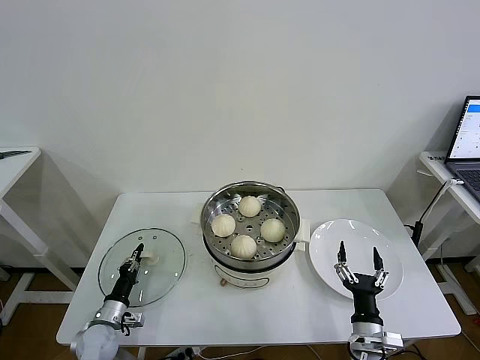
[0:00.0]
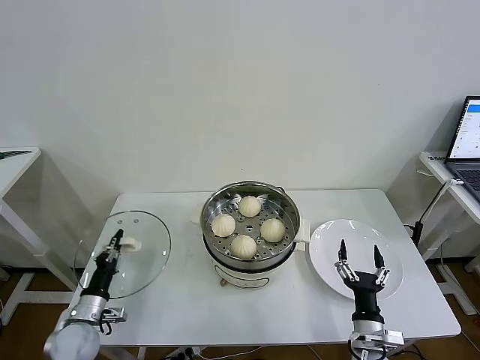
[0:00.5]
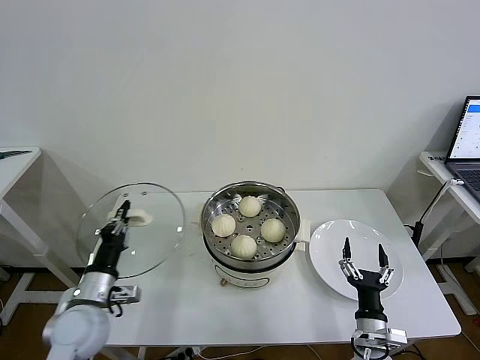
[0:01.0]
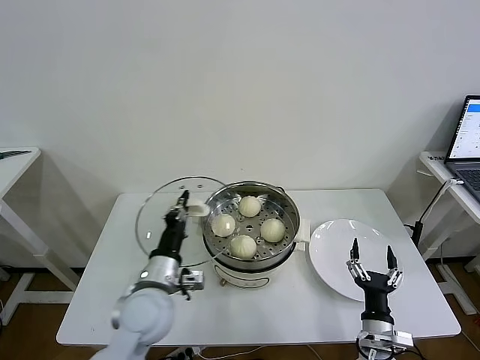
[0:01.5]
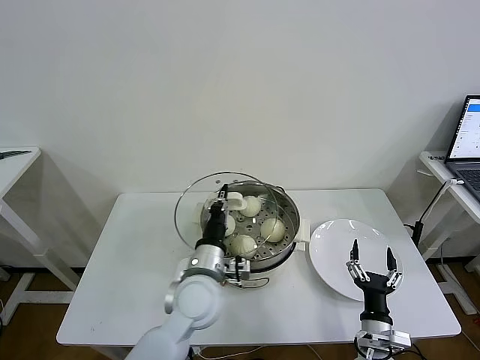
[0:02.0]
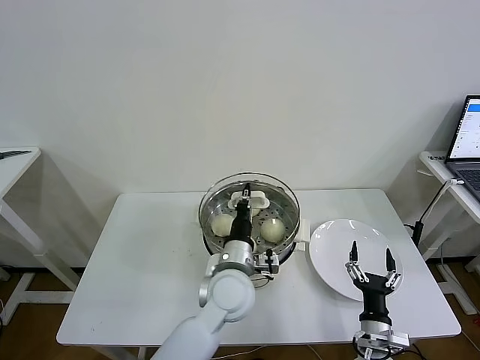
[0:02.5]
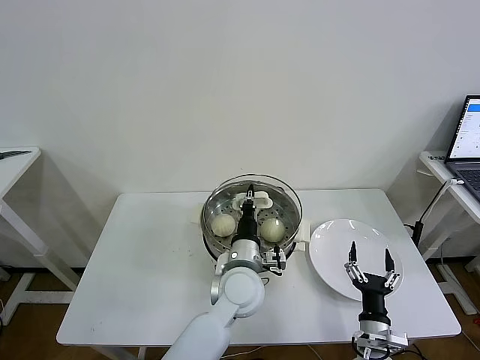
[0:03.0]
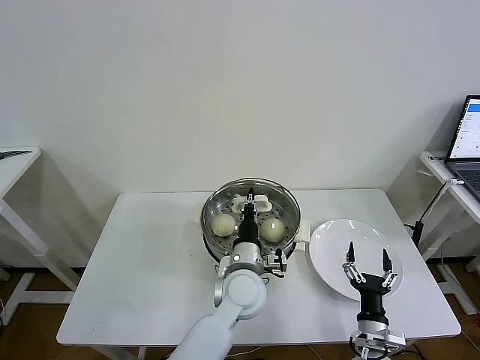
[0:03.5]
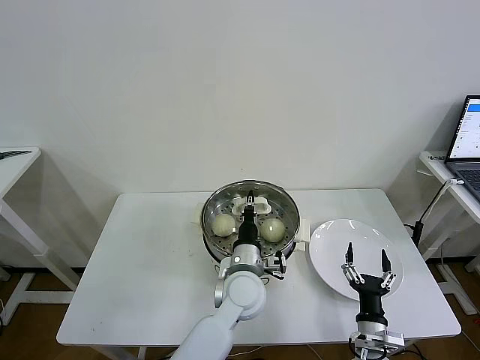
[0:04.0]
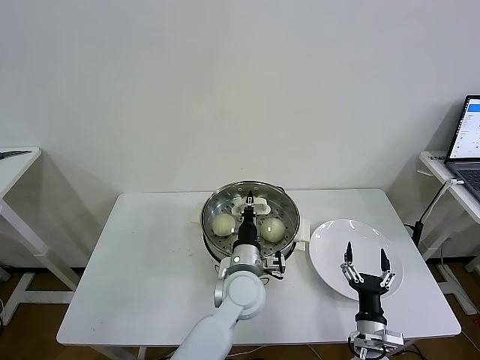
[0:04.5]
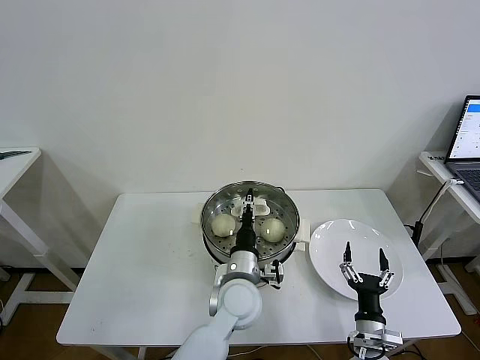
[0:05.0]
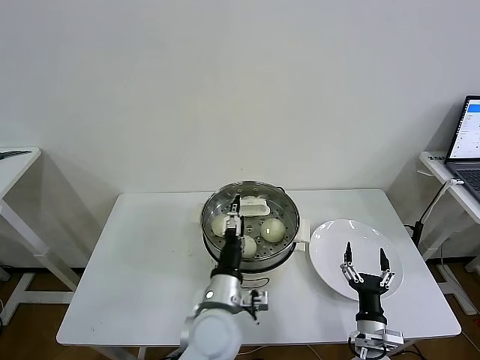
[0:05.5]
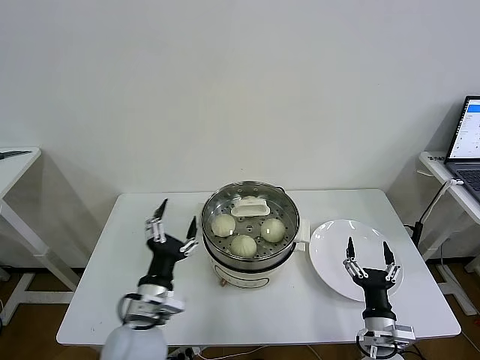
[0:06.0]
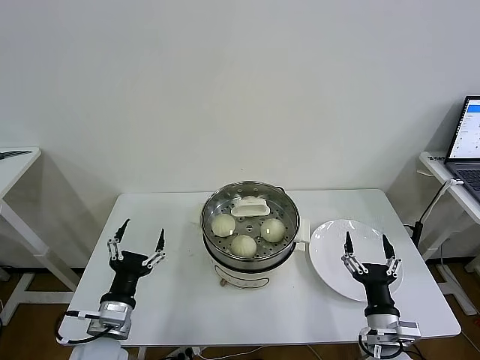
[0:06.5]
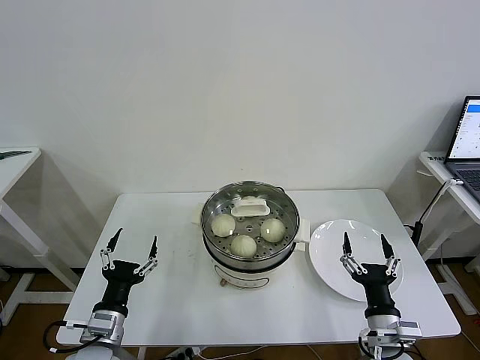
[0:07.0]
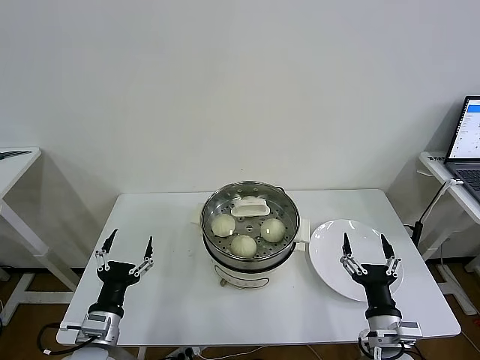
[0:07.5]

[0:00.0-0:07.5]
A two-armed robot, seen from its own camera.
Task of the whole recording: take steamed baozi put them in steamer then cover it.
Step, 0:00.5 to 0:05.5: Place the pot lid on the steamer with left gripper.
0:00.0 to 0:02.0: The left gripper shifts some 35 cm to the right and upward.
0:02.0 to 0:04.0: The left gripper shifts some 10 cm to the right.
0:04.0 to 0:05.5: The left gripper shifts roughly 5 cm backward, and opens up.
0:05.5 to 0:07.5: The right gripper shifts about 10 cm upward; the left gripper goes roughly 25 cm to the left.

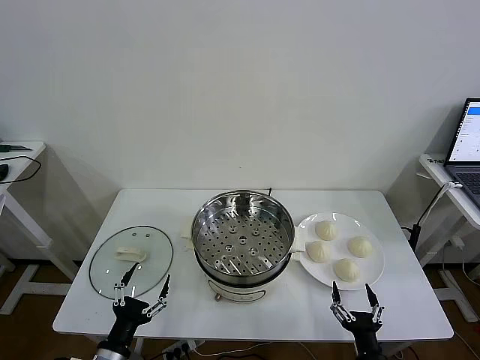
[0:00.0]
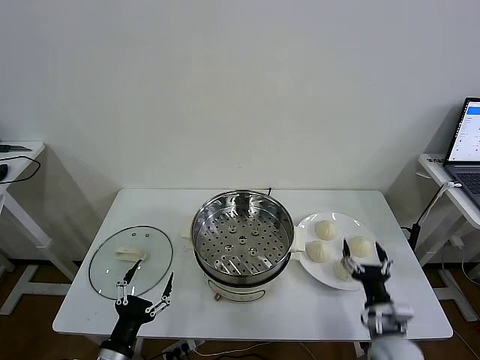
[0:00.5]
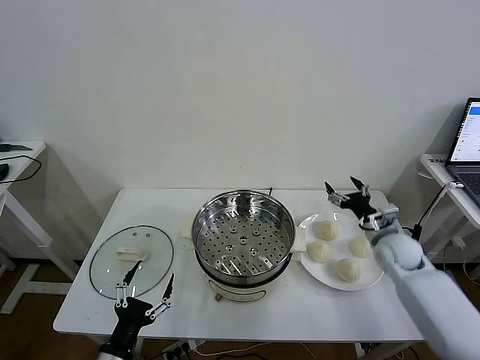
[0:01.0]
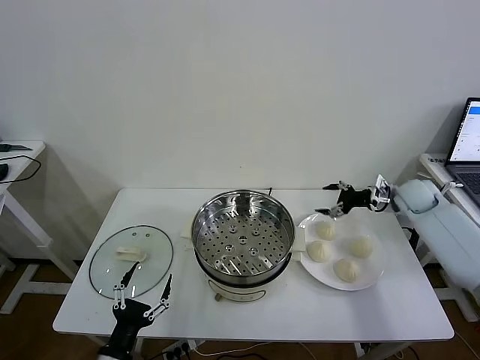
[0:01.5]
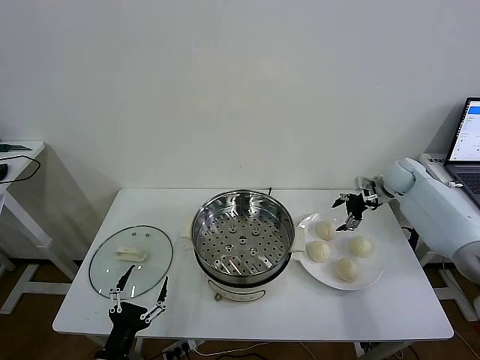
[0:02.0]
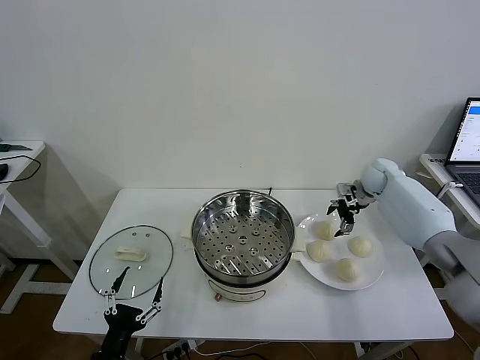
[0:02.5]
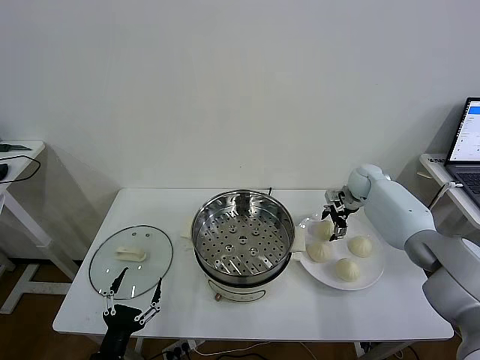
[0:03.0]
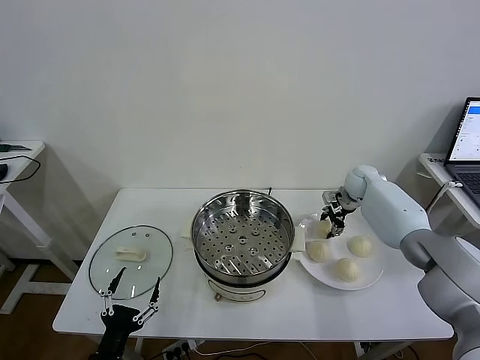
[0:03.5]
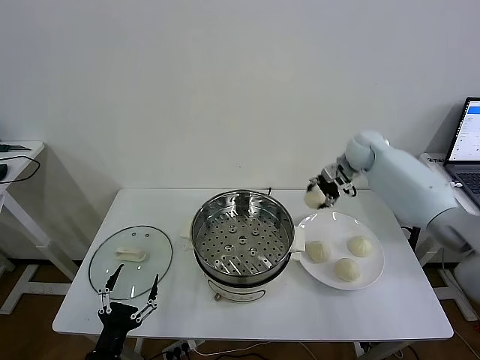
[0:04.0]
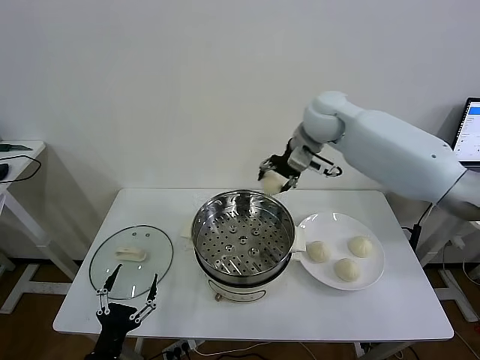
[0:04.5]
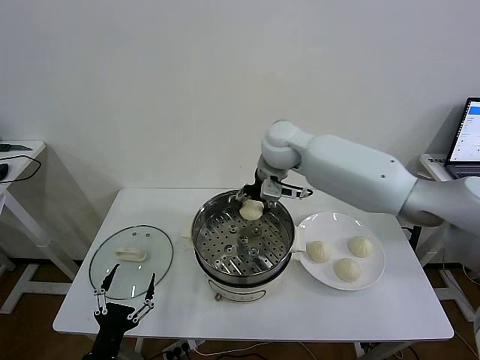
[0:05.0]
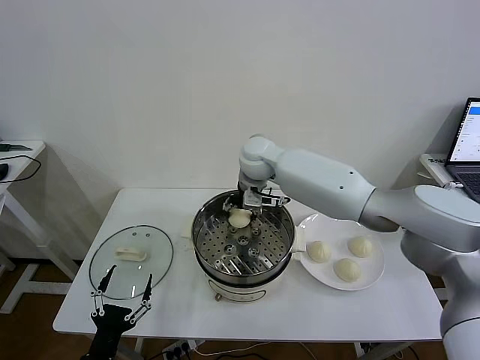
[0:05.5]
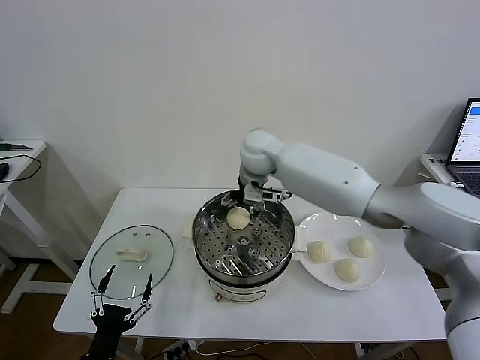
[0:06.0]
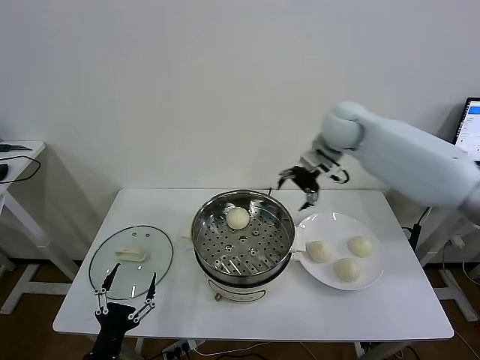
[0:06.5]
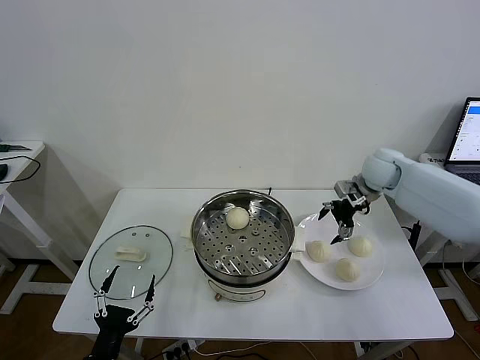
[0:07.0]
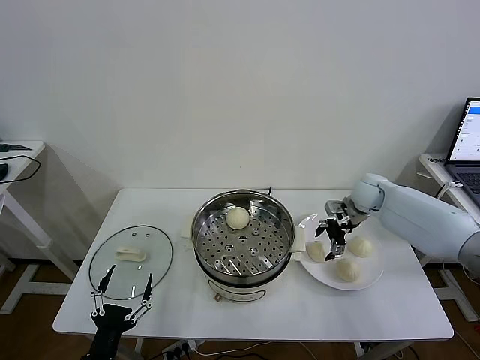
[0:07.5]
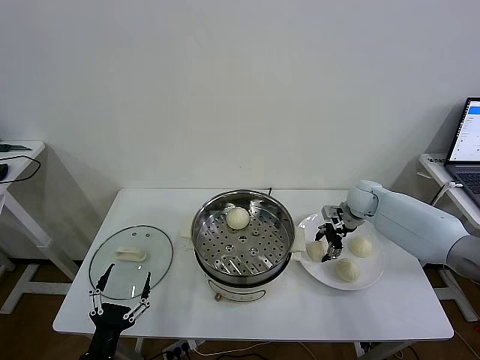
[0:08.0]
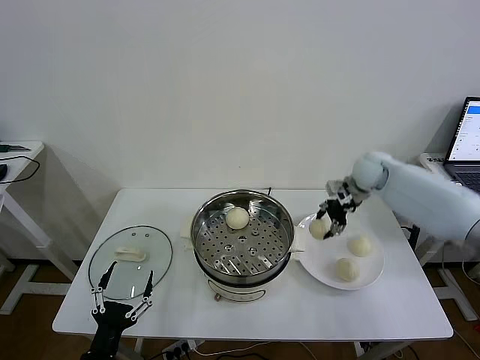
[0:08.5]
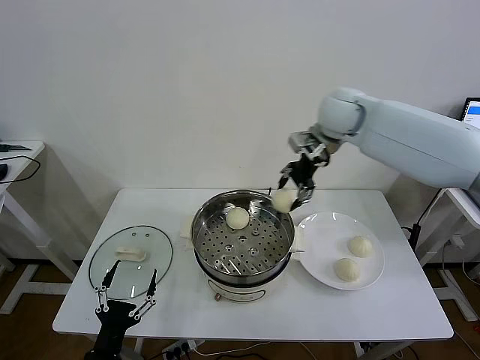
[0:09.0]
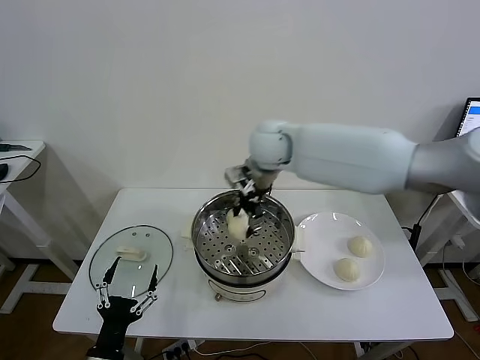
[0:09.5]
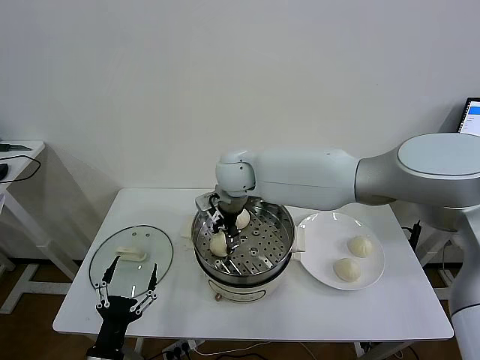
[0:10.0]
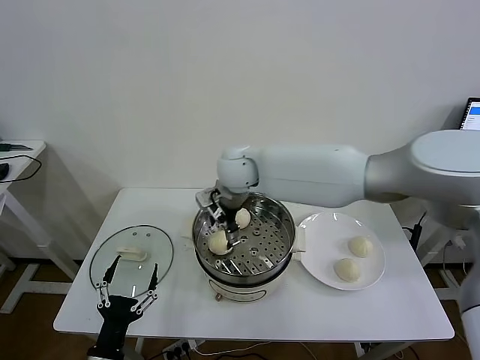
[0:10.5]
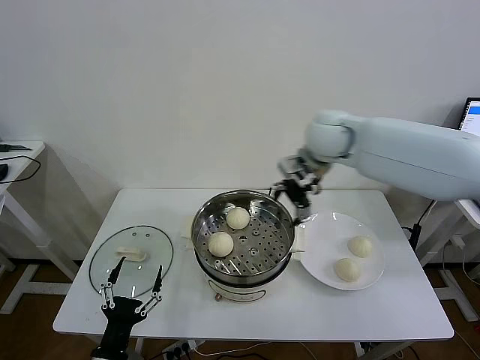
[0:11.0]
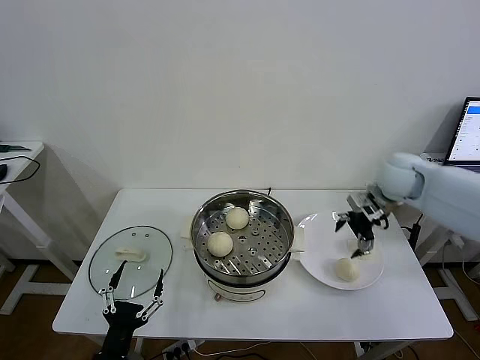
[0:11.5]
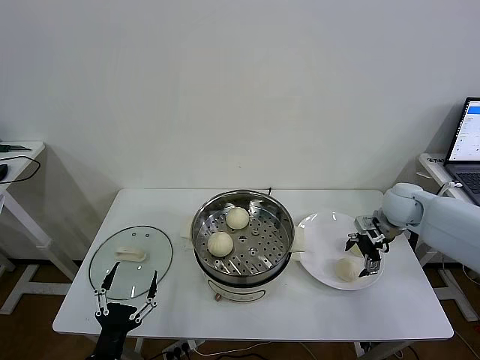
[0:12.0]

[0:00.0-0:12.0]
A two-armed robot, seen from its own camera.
Task of the whole recording: take steamed baozi put them in steamer then cover it.
Step, 0:00.0 to 0:03.0: Grasp the baozi in the plate with right gripper.
Step, 0:03.5 to 0:05.5: Place the baozi on the steamer with right gripper.
Step, 0:06.0 to 0:08.0: Grasp the baozi in the plate with right gripper.
Step, 0:08.5 to 0:10.5: Place the baozi on the steamer with right gripper.
0:02.0 to 0:04.0: The right gripper moves to the left and upward, approximately 20 cm, and closes its fingers.
0:04.0 to 0:06.0: The right gripper is displaced to the left by roughly 20 cm, and opens its fingers.
0:06.0 to 0:08.0: The right gripper goes some 30 cm to the right and downward, and closes.
0:08.0 to 0:10.0: The right gripper goes some 35 cm to the left.
0:10.0 to 0:12.0: The right gripper travels to the right by about 40 cm, and opens.

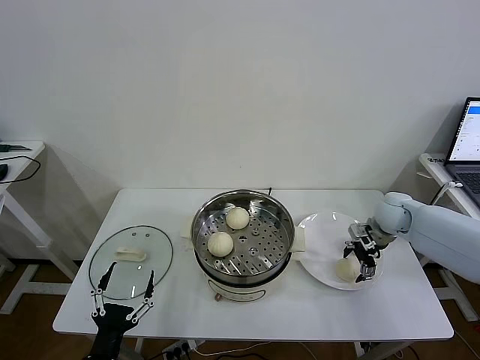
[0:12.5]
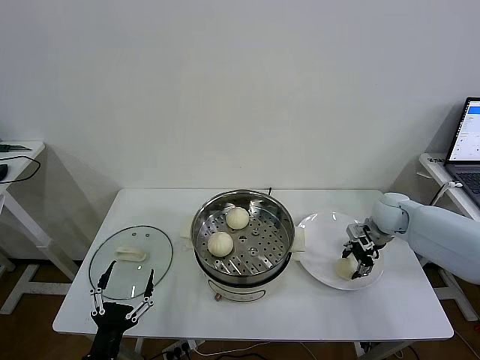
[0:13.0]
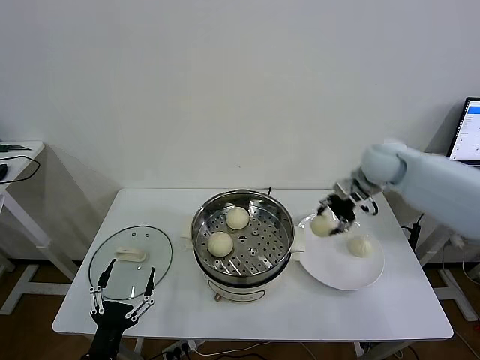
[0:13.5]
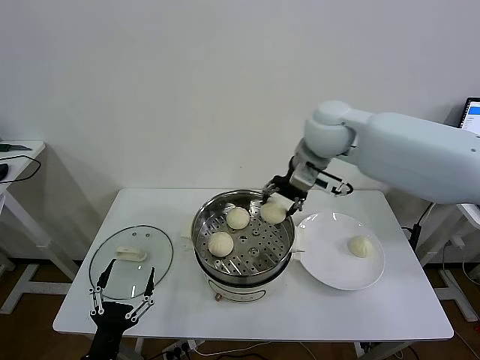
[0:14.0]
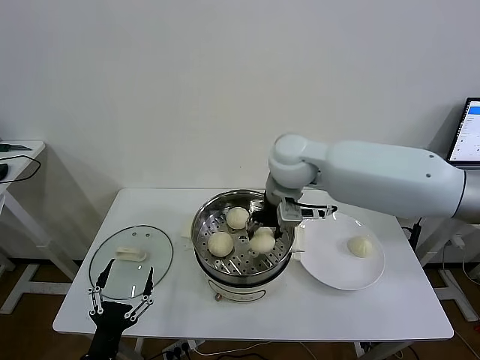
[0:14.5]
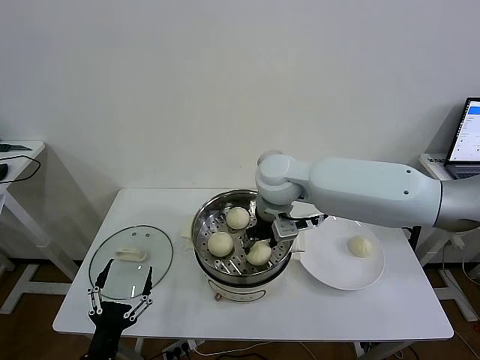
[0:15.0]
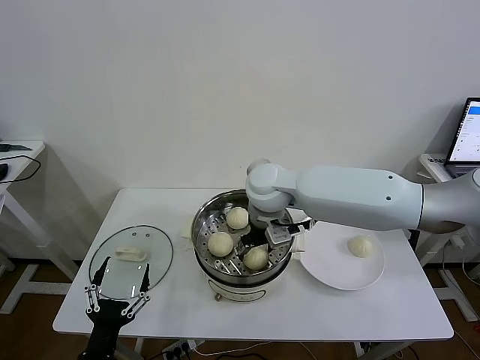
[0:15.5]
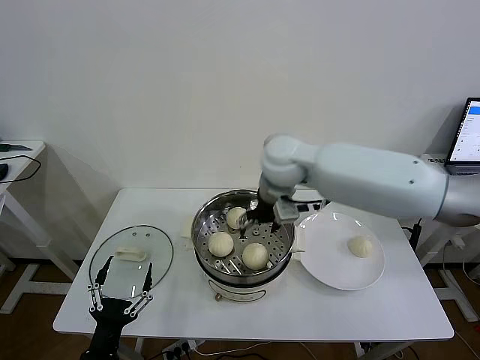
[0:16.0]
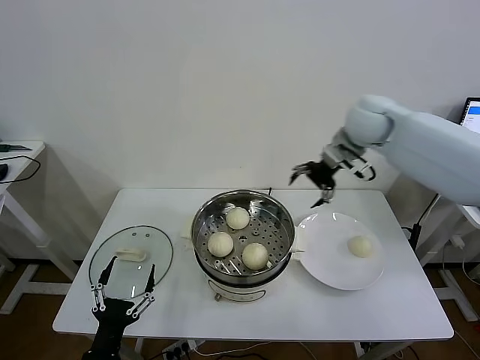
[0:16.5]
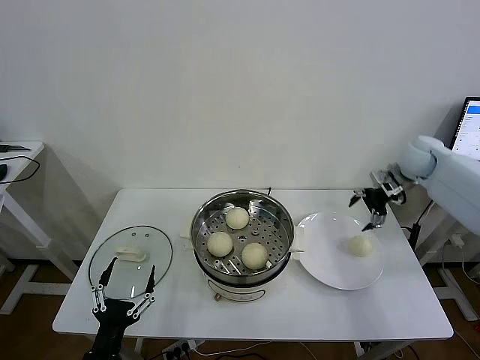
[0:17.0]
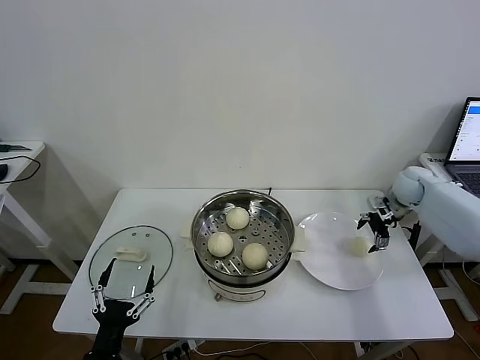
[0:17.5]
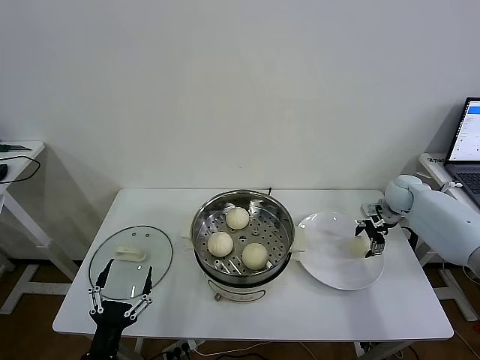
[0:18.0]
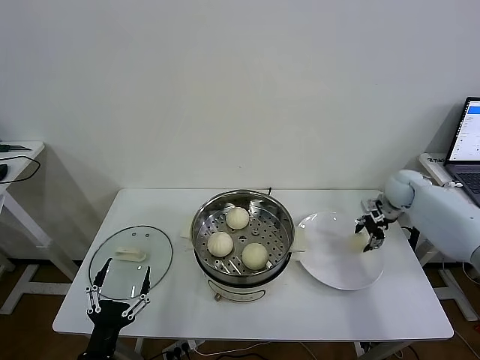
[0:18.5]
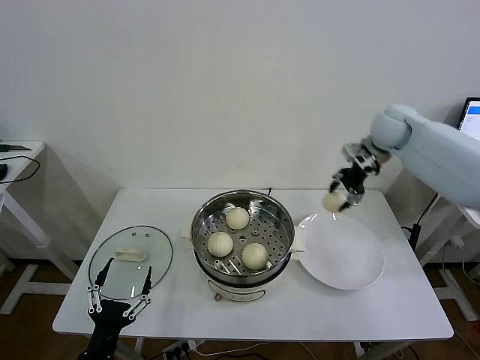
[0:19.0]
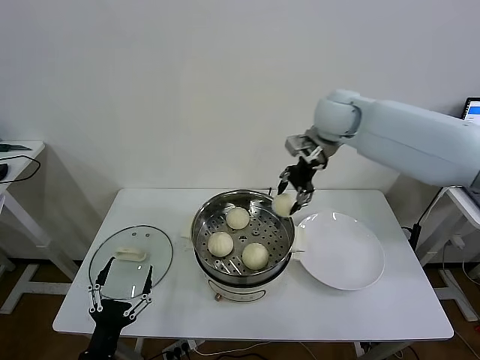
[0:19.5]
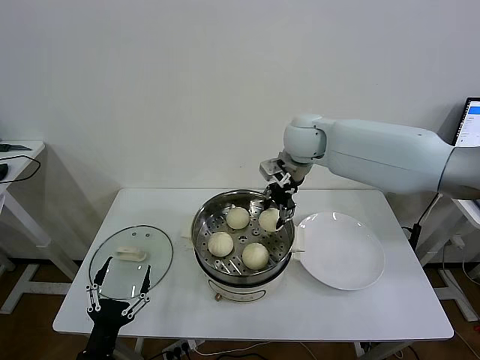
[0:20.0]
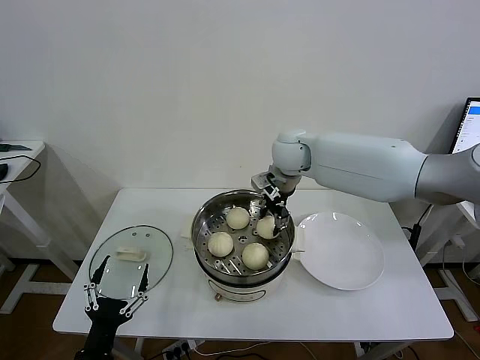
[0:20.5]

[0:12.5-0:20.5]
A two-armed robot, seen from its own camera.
Task of the whole recording: take steamed baozi put them in steamer then cover it.
Step, 0:13.0 to 0:15.5: Place the baozi on the steamer with right gripper.
Step, 0:16.0 to 0:18.0: Grasp the baozi in the plate with right gripper.
0:12.5 to 0:14.5: The right gripper heads to the left and upward, covering approximately 35 cm, and closes.
0:14.5 to 0:16.5: The right gripper goes approximately 20 cm to the right and forward, and opens up.
0:16.5 to 0:18.5: The right gripper heads downward and to the right, covering approximately 25 cm, and closes up.
0:18.5 to 0:20.5: The right gripper travels to the left by roughly 30 cm.
